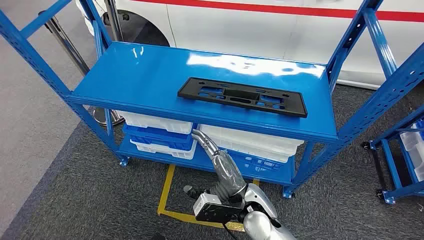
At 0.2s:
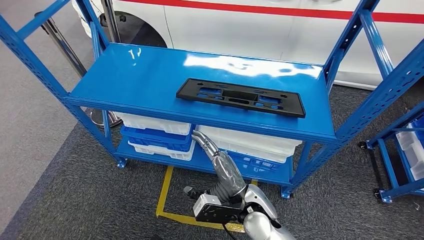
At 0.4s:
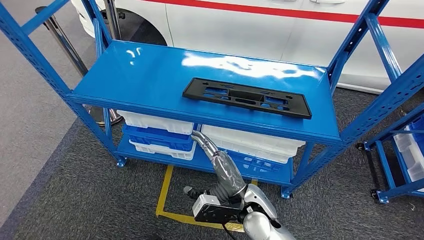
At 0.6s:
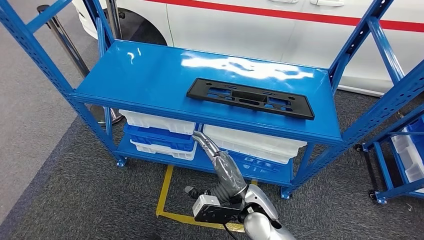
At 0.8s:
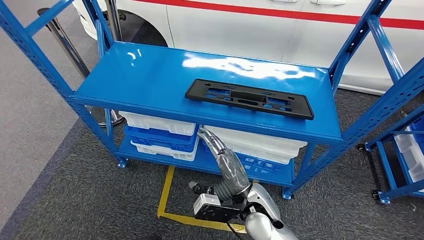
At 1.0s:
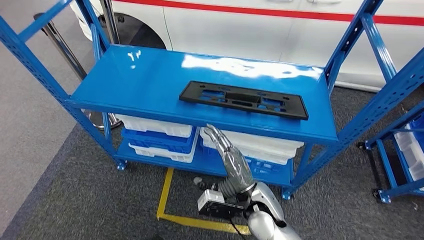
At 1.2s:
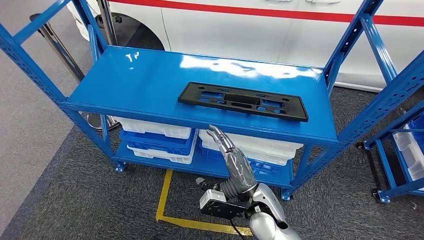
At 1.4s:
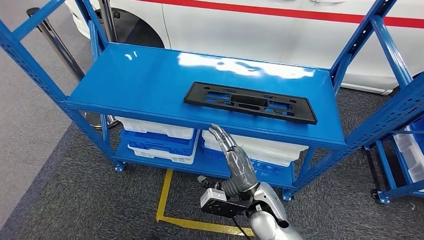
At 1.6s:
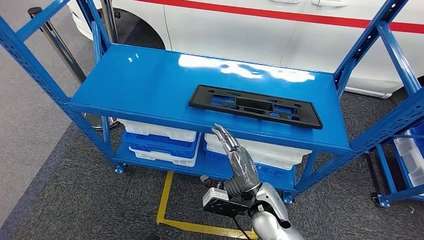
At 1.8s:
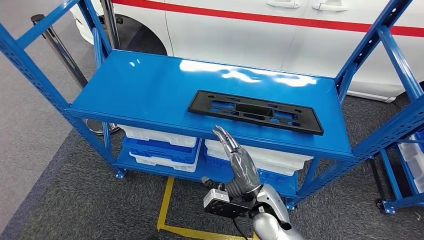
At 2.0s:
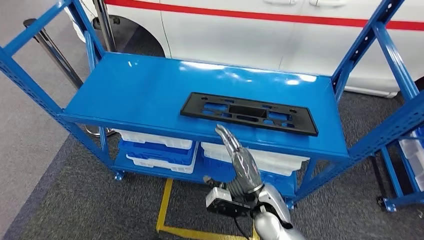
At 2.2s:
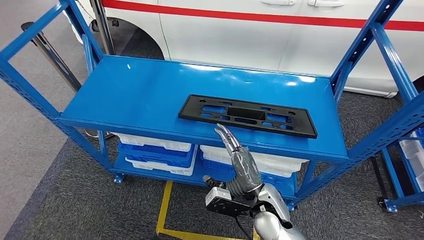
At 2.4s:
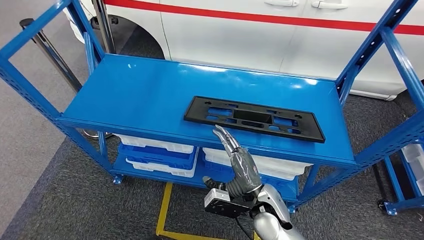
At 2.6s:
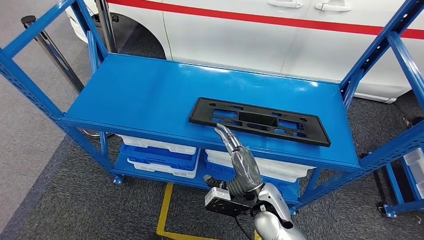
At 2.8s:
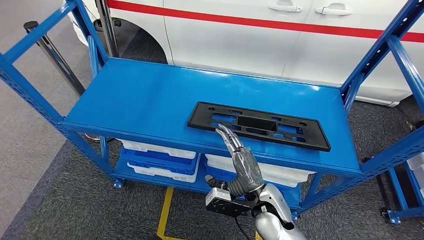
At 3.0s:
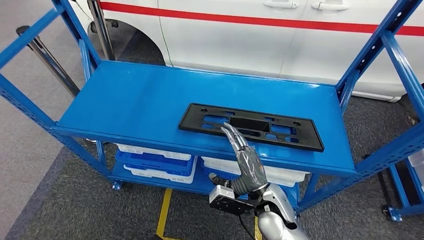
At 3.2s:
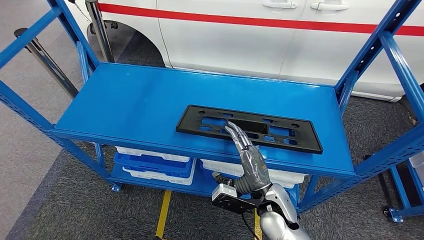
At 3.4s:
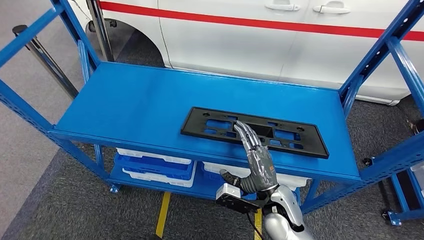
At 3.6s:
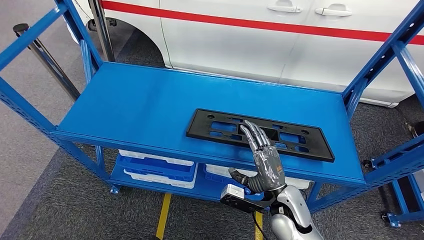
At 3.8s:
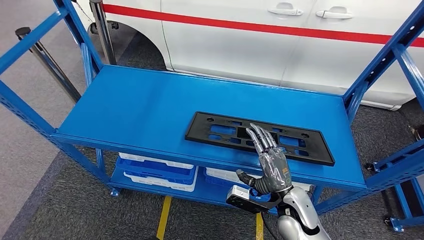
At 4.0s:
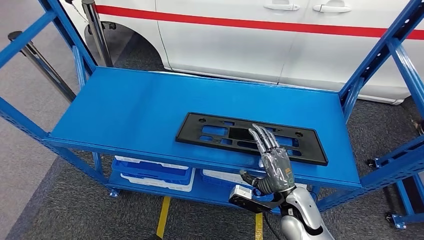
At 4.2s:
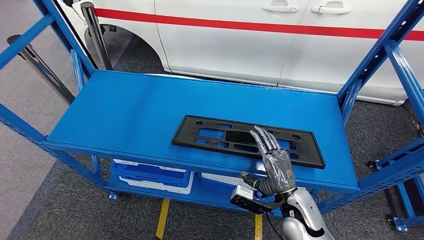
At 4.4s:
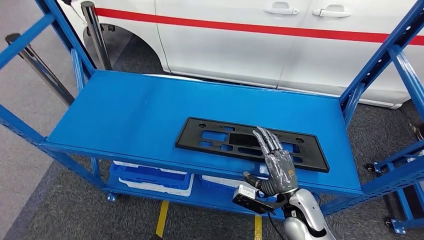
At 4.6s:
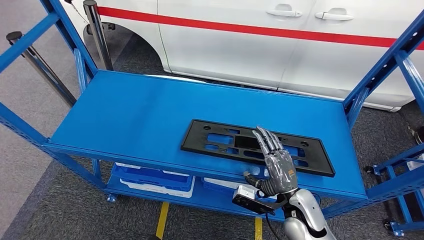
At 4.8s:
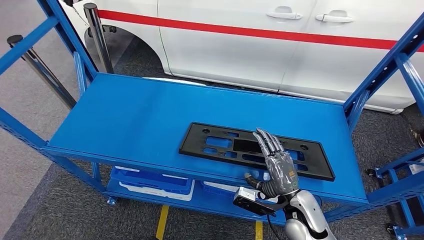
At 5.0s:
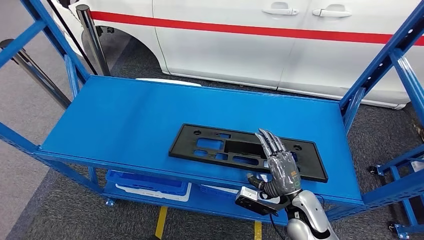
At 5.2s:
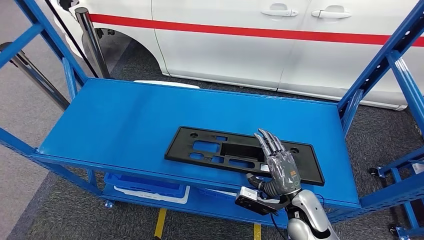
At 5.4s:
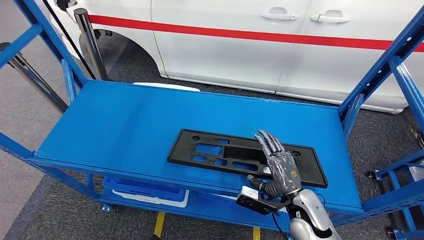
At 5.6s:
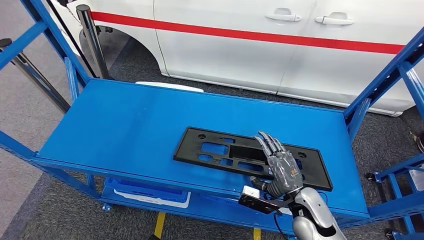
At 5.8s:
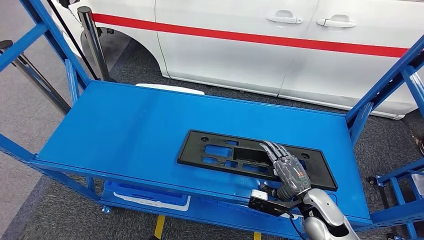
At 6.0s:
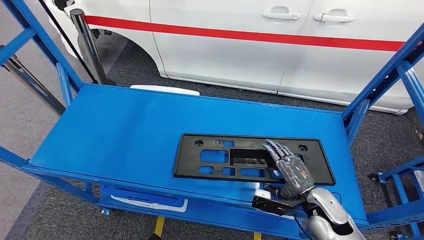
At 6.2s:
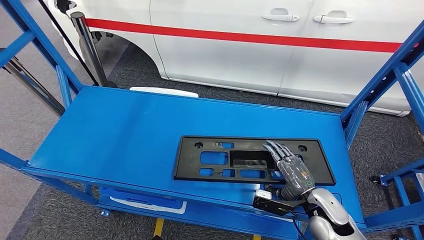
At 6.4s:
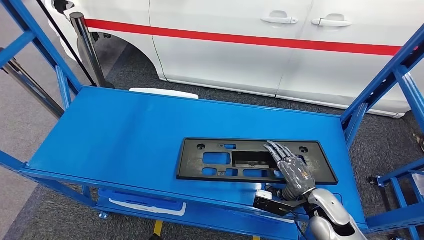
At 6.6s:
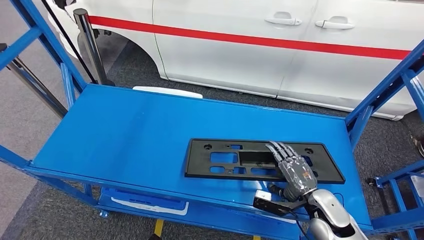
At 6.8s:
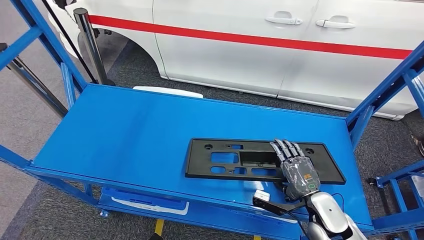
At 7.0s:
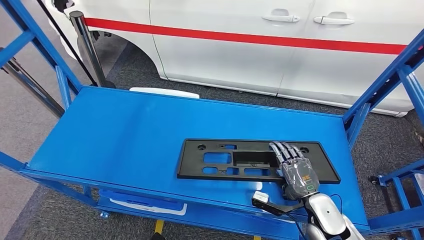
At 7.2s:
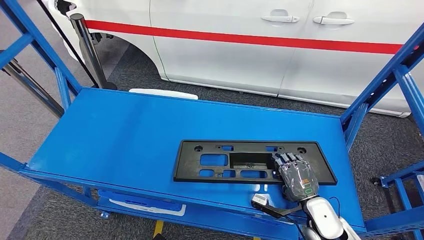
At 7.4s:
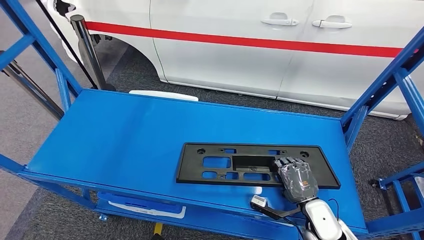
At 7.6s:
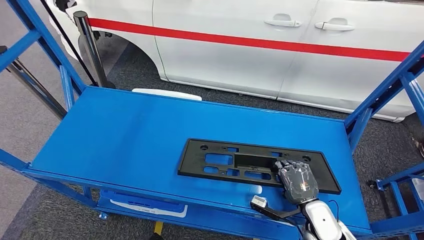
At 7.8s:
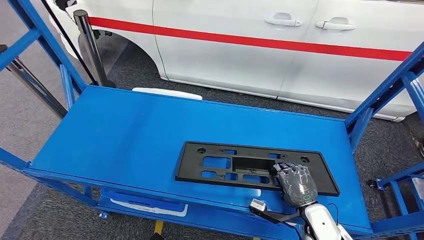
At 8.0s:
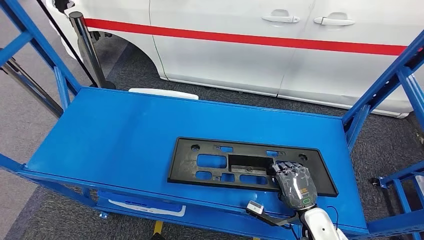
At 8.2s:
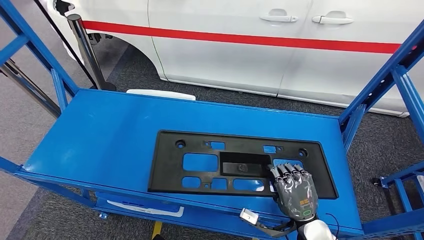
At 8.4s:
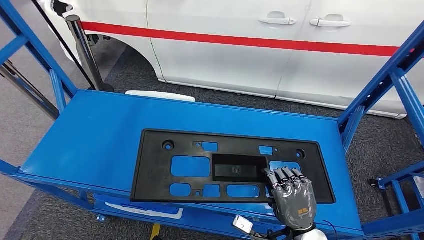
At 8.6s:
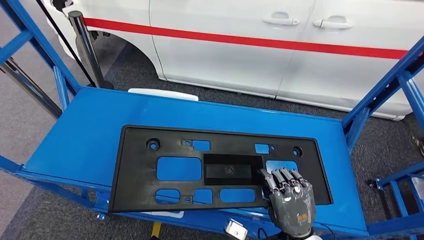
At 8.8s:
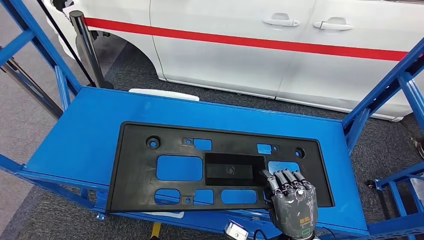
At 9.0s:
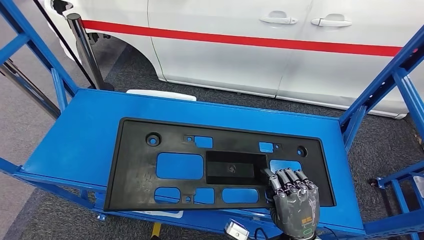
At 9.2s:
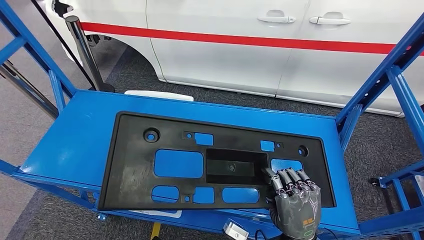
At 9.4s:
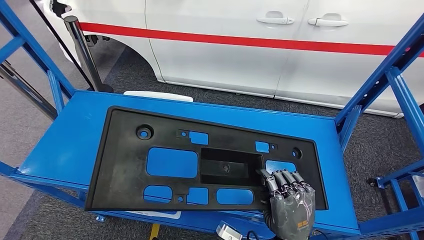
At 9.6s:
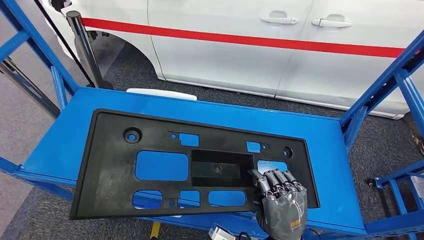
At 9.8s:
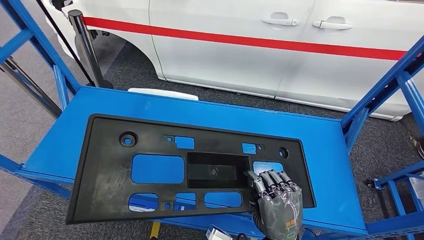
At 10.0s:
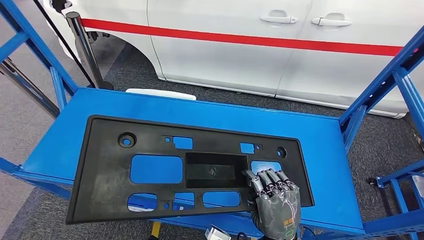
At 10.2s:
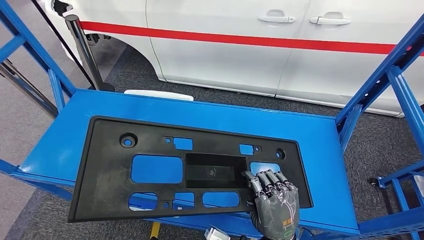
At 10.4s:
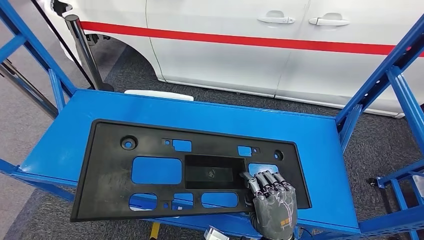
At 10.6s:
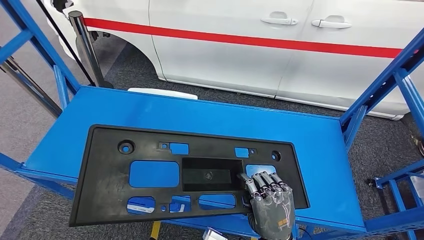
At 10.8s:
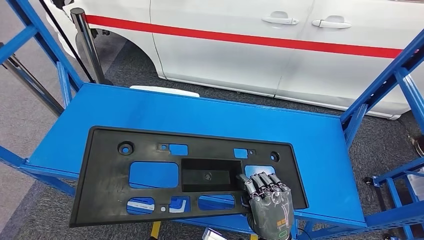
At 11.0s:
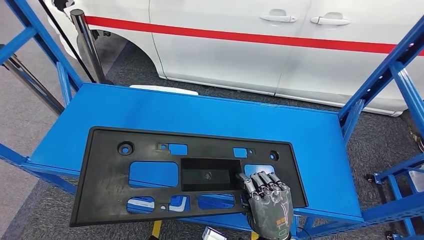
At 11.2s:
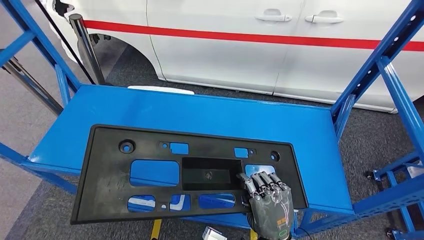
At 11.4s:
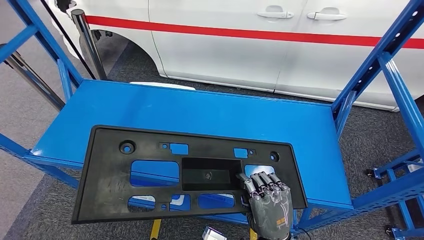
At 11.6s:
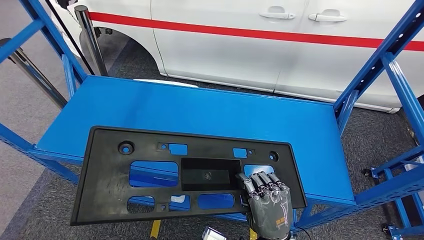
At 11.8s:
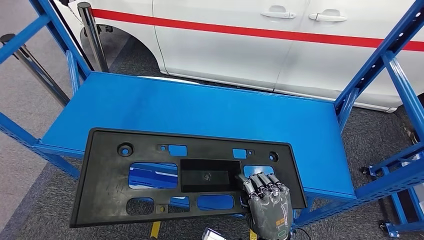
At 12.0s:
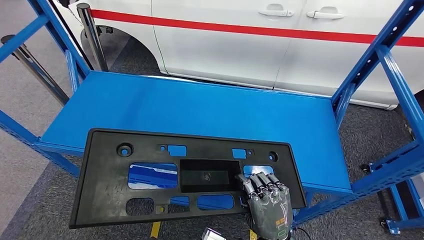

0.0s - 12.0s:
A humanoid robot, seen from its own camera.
Step, 0.0s - 10.4s: Pick up the large material from the shelf.

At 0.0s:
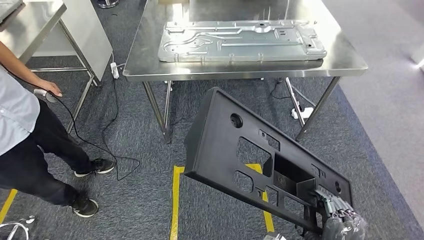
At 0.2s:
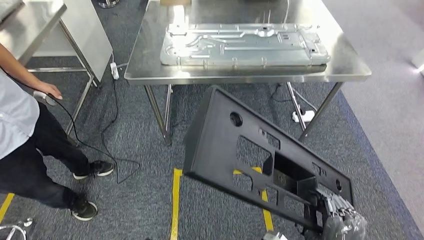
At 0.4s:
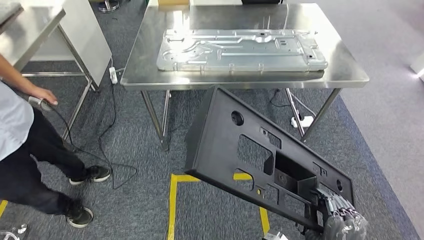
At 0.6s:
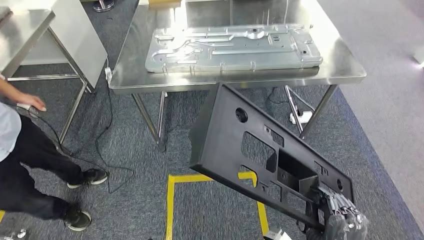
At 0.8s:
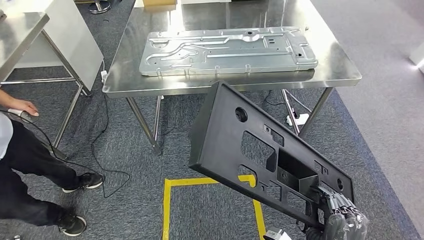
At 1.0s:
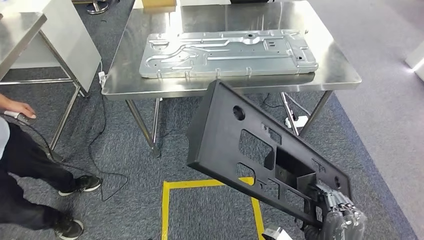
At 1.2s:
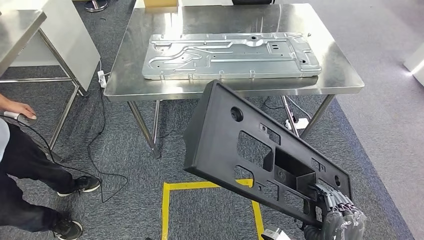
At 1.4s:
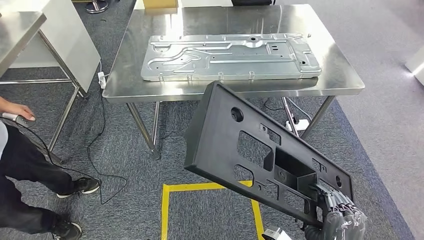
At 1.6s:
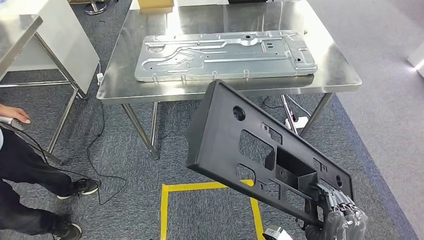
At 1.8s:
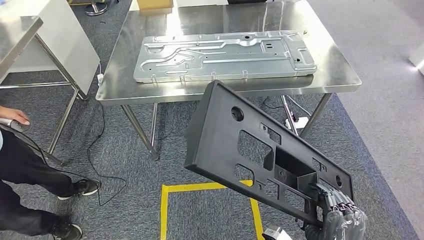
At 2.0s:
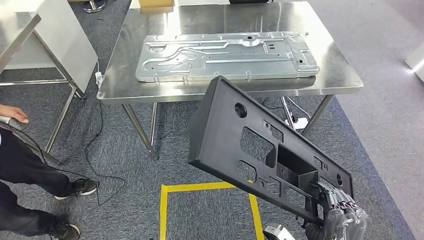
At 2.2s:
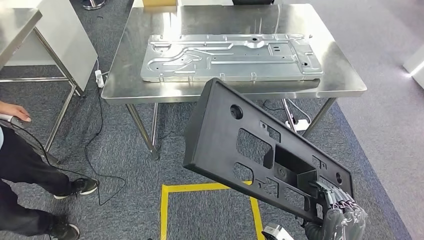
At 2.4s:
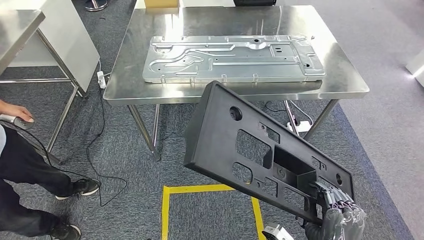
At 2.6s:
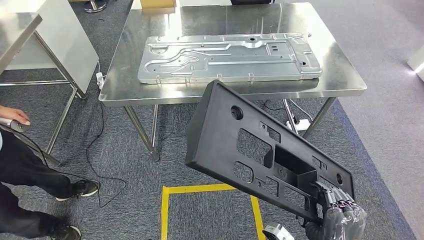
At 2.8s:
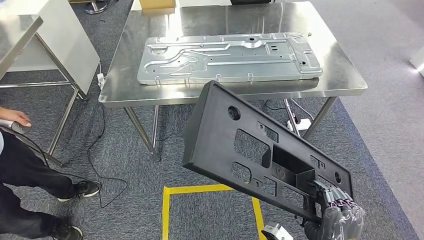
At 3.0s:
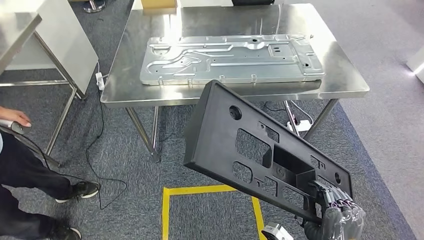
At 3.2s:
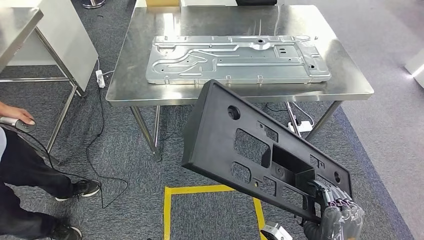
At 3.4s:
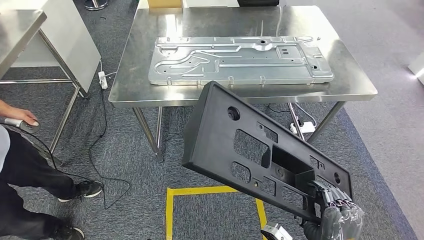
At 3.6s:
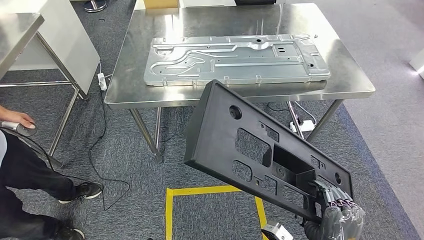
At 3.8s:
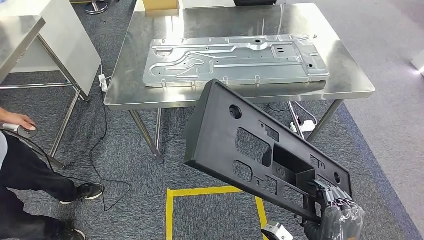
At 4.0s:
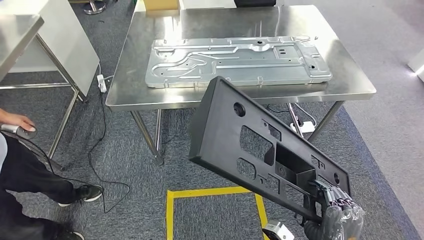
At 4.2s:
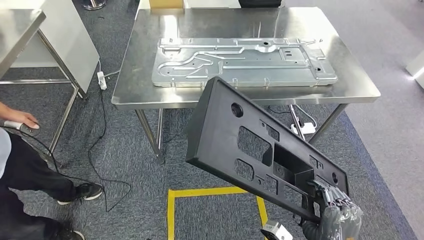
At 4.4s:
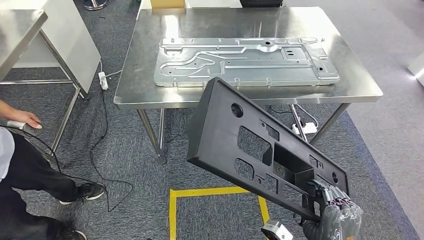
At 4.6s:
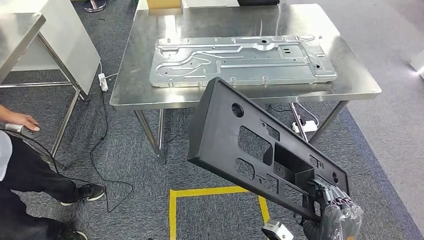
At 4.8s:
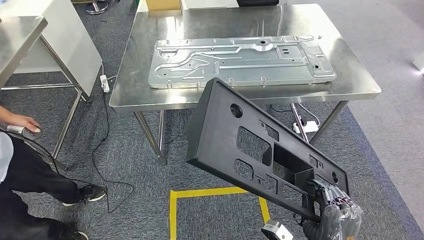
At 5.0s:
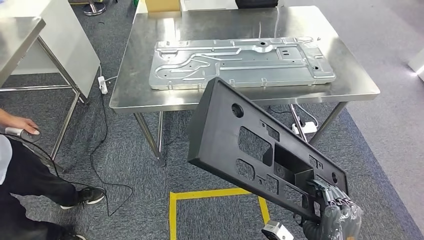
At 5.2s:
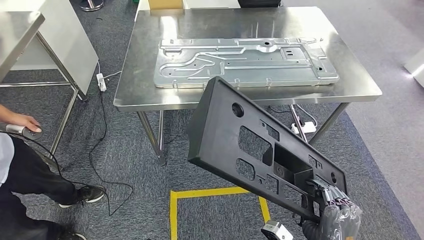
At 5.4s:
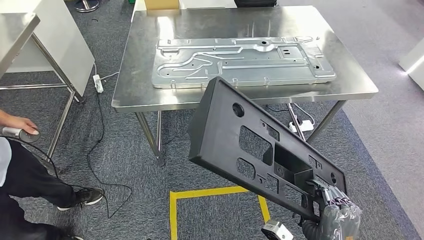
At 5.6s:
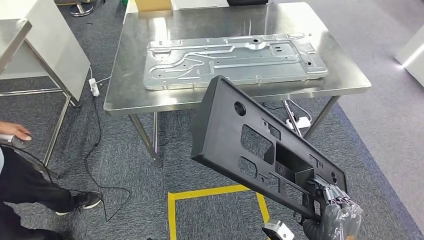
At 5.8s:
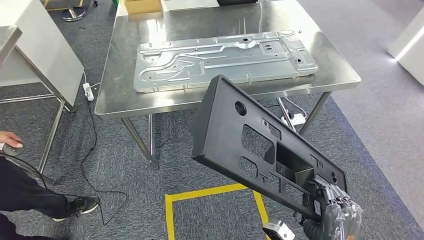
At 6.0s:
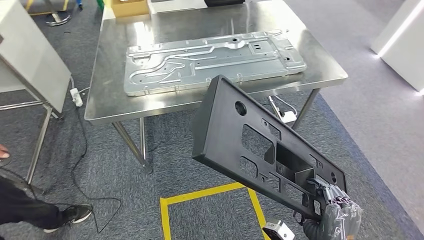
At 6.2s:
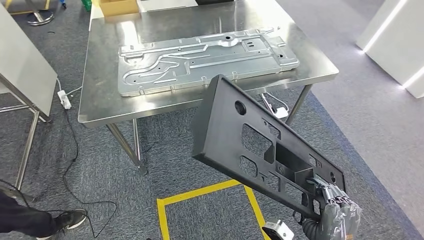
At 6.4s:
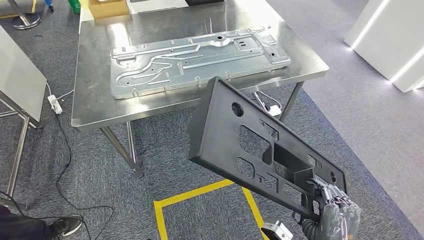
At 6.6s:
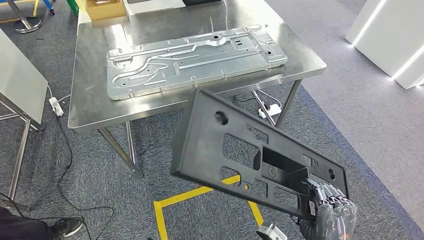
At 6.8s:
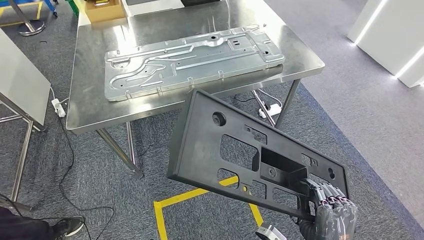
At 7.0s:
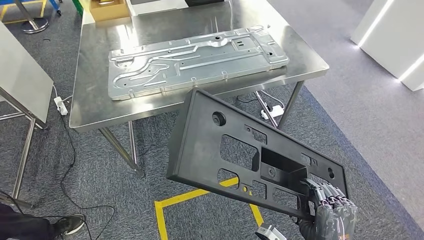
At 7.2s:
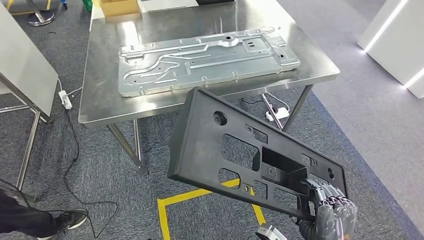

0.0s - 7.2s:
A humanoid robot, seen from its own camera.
Step, 0.0s - 6.0s: Move the large material to the workbench.
1.4s - 2.8s: Both hands stay about where they are.
